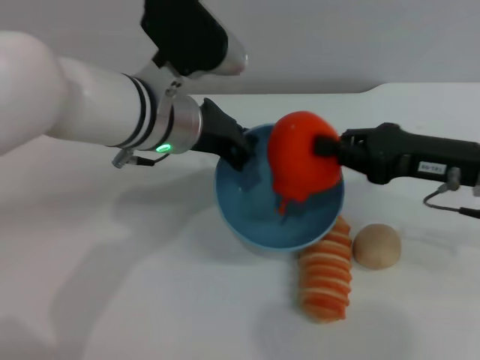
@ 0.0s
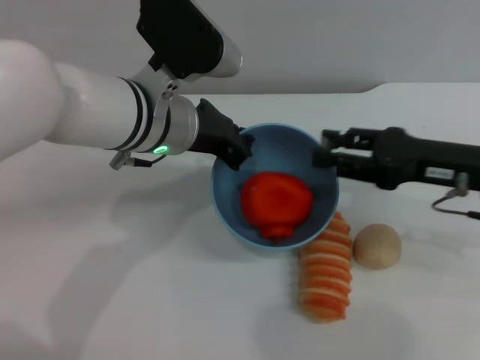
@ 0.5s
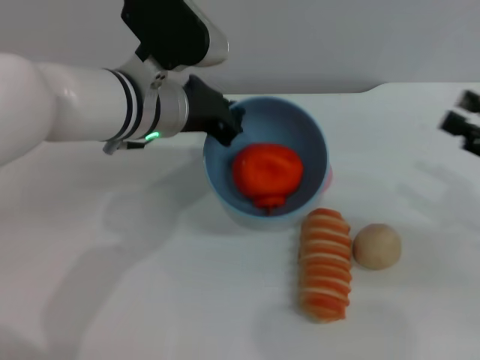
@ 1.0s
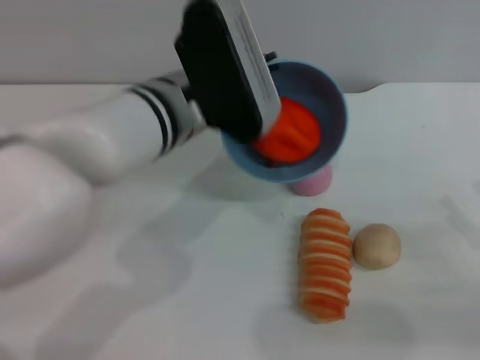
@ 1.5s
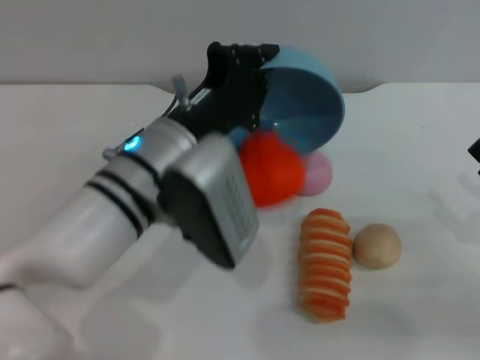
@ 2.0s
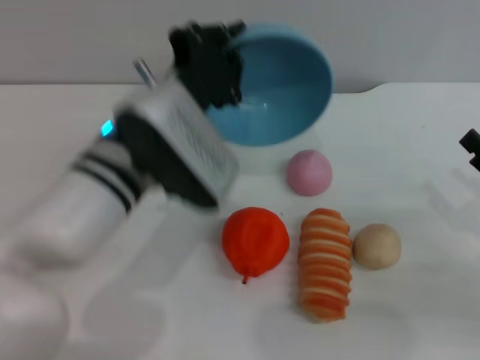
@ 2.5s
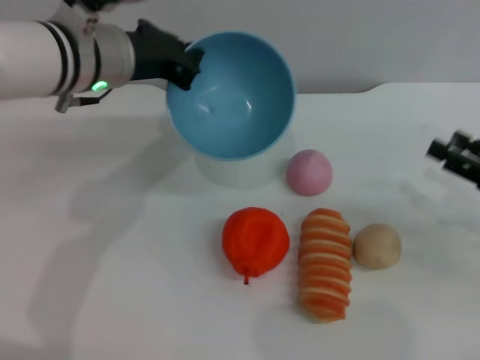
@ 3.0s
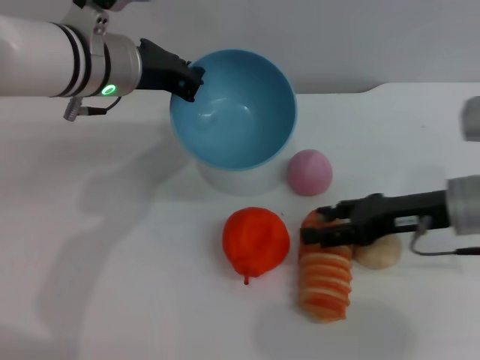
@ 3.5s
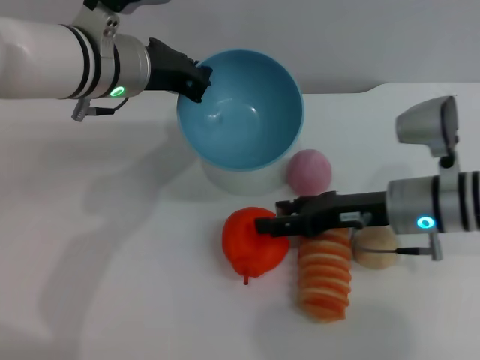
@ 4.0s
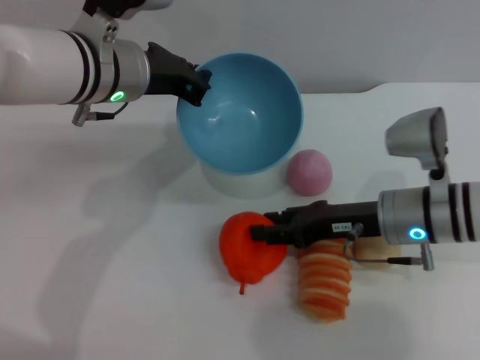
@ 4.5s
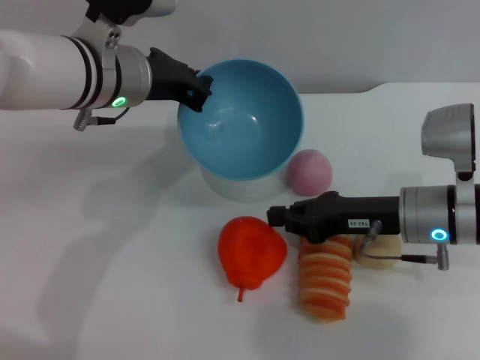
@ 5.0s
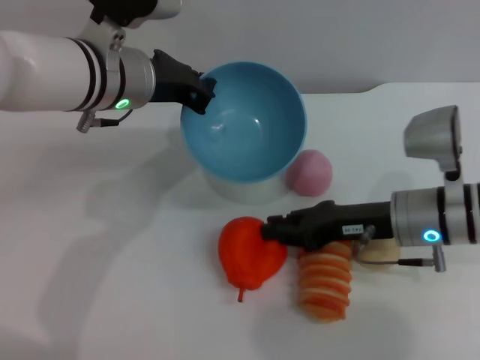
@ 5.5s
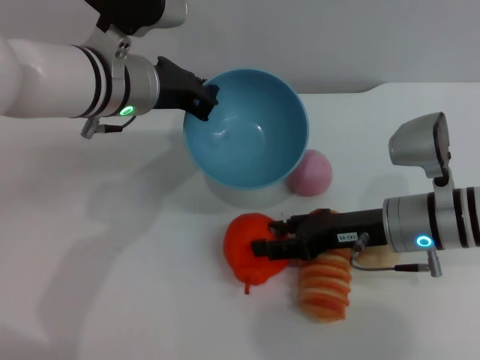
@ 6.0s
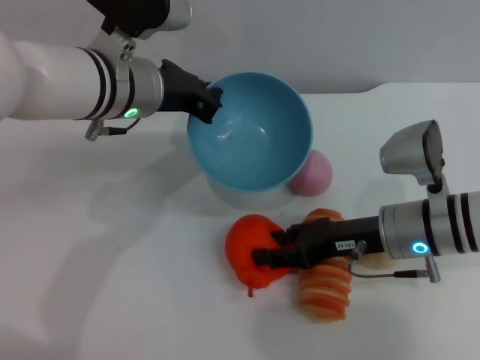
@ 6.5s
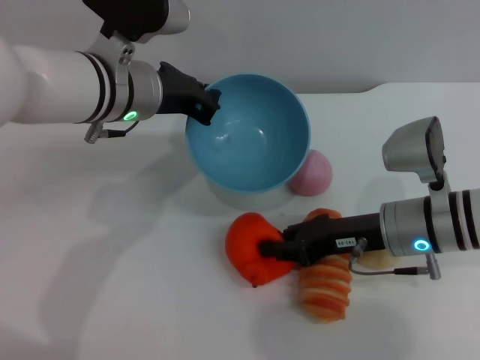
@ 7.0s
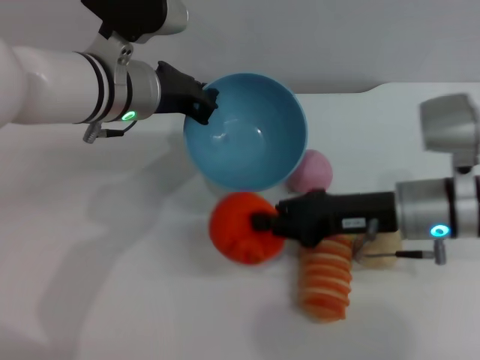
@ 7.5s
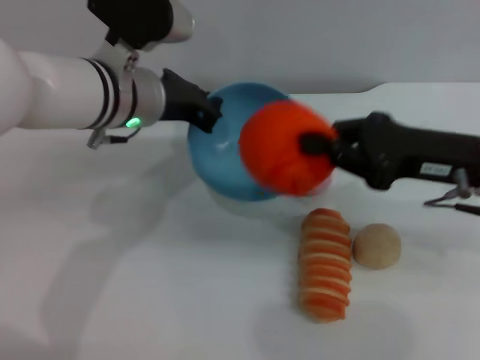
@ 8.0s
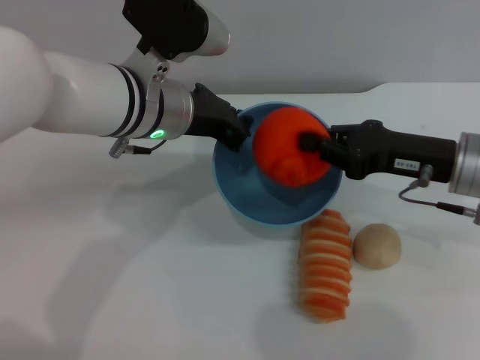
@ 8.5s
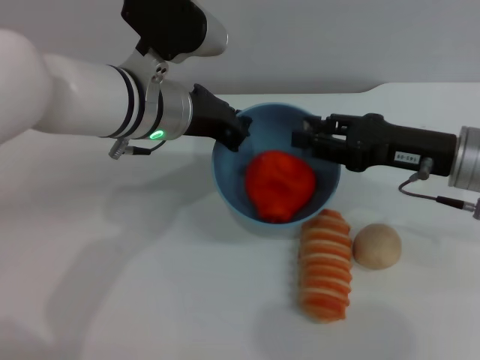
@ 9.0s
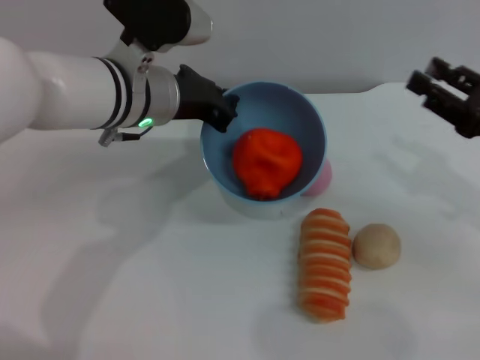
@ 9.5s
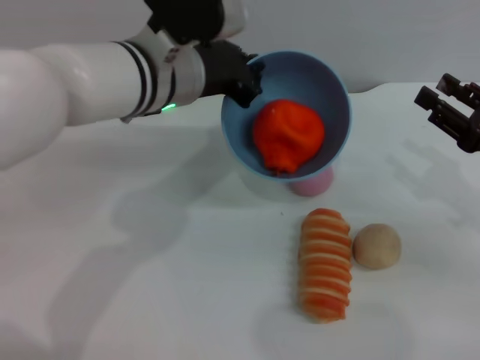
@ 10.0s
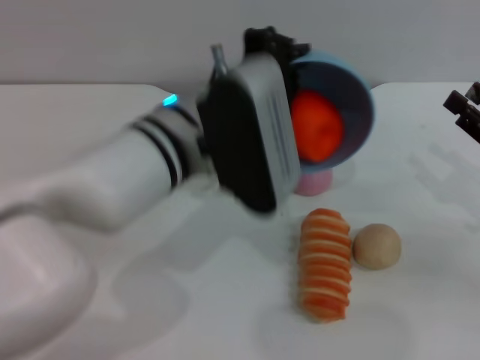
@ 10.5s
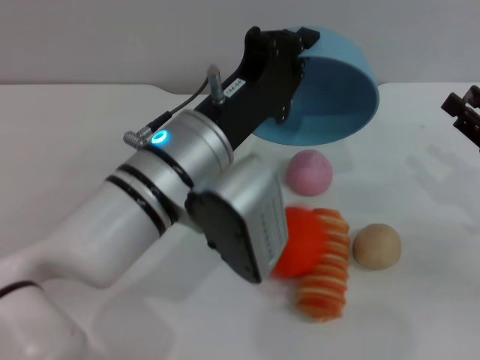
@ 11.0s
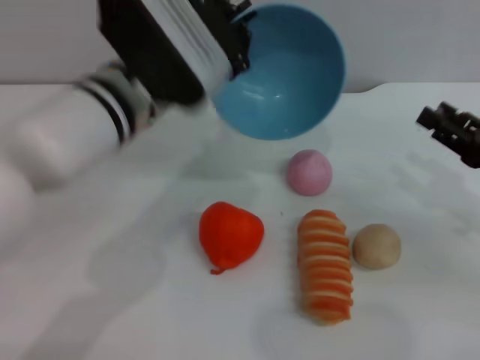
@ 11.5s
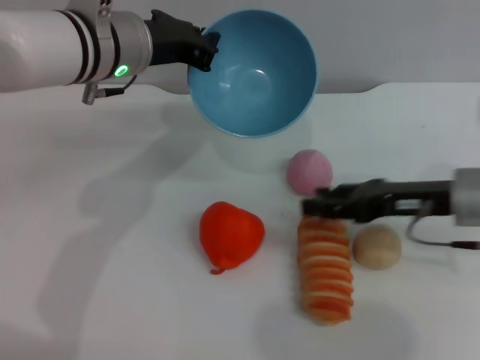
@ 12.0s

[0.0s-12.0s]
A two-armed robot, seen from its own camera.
Task of the whole recording: put the orange into the blue bowl and pour it out repeatedly.
Step, 1.0s to 2.0s: Pour the orange out of the bowl.
Step, 2.5s to 7.0s: Pick up the orange with the right gripper.
Step, 8.0s to 8.5s: Place the orange into the bowl.
Step, 9.0s to 11.0s: Pour the orange out of the bowl.
0.0s to 2.0s: The left gripper goes roughly 5 cm backward; the right gripper travels backward, to the right and downward by about 15 cm, and opens its fingers.
2.0s to 4.0s: The left gripper shifts about 10 cm forward and upward. Meanwhile the right gripper goes some 20 cm to the left and forward.
4.0s to 6.0s: The right gripper closes up.
6.0s to 8.0s: The right gripper is displaced upward by roughly 10 cm, and closes its fingers.
8.0s to 10.0s: The right gripper goes about 10 cm to the right and downward, and opens its fingers.
10.0s to 12.0s: The right gripper is displaced to the left by about 10 cm. The left gripper goes backward and returns, approximately 10 cm each way.

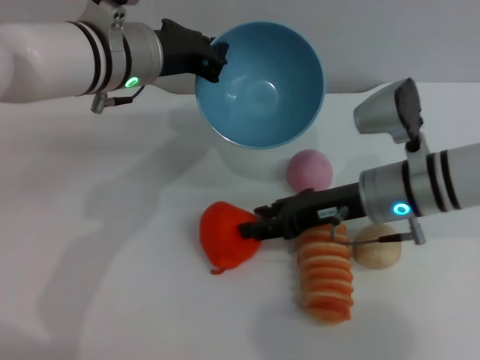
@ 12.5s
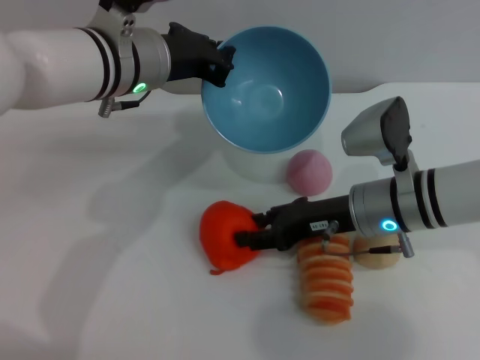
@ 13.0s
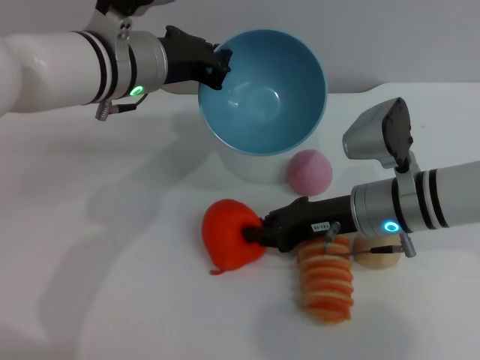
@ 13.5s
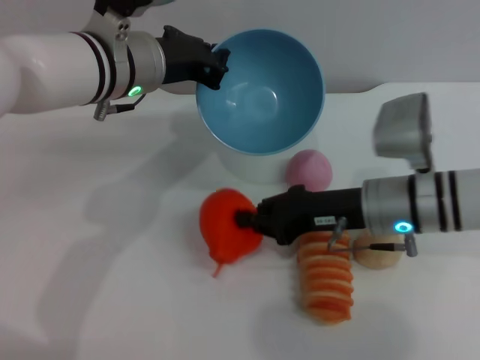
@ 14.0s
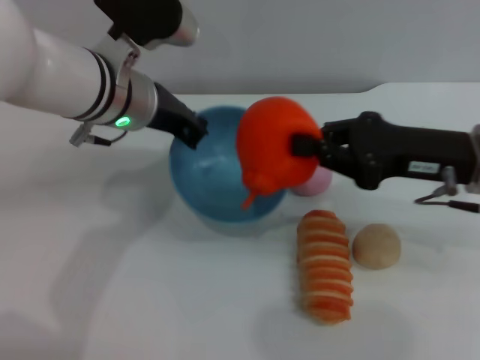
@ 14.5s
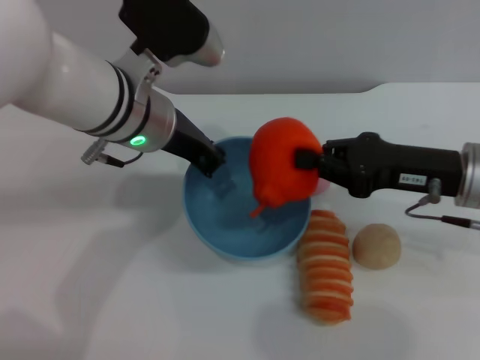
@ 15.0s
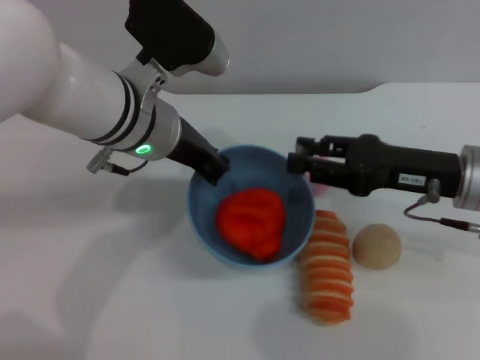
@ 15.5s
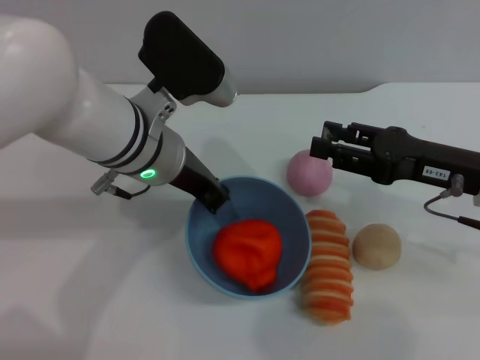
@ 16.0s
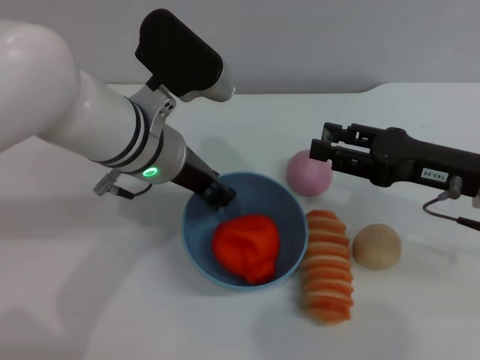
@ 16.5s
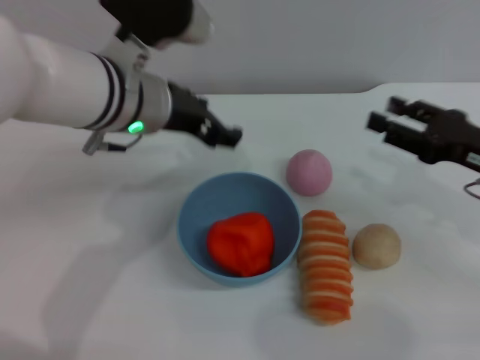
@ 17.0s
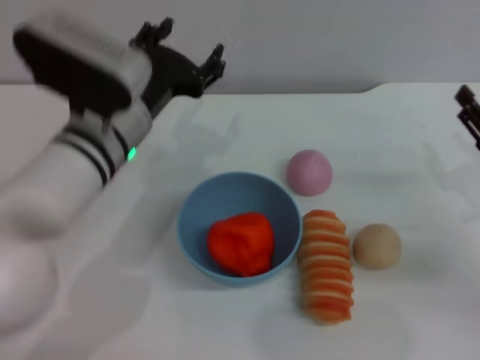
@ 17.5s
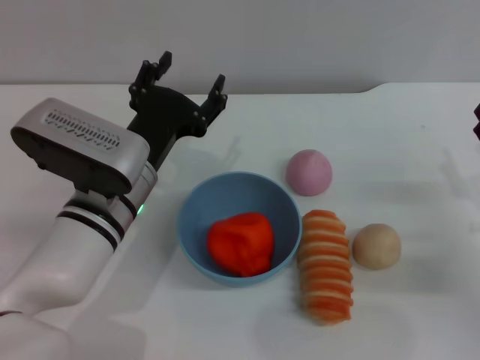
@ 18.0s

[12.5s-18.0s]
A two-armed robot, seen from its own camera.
Task of the whole recording: put the orange into the blue bowl and pour it out repeatedly.
Step, 12.5s to 14.0s: Pick up the orange with the right gripper.
Step, 14.5s to 15.5s: Place the orange into the bowl.
Step, 16.0s to 16.5s: Place the bowl on the table.
12.5s to 14.5s: The right gripper heads upward and to the right, covering roughly 10 cm, and closes its fingers.
14.5s to 16.0s: The right gripper opens its fingers.
16.0s to 18.0s: The left gripper is displaced downward by roughly 10 cm, and opens its fingers; the right gripper shifts about 10 cm downward and to the right.

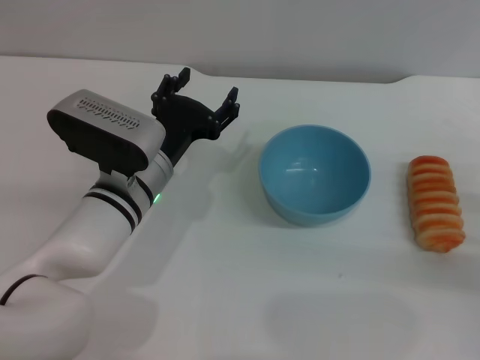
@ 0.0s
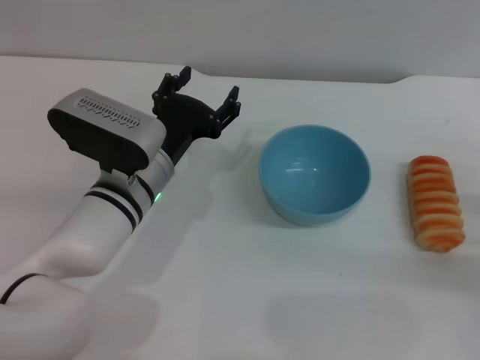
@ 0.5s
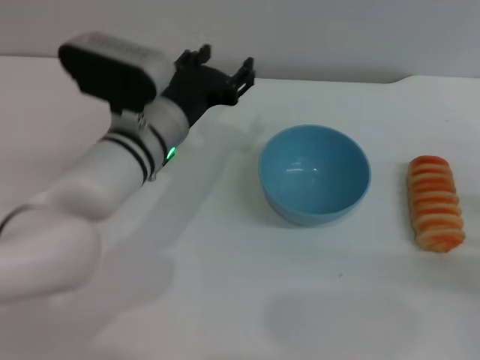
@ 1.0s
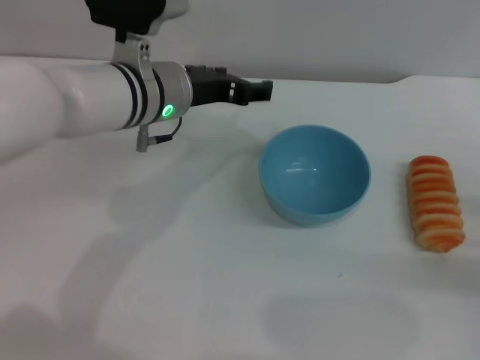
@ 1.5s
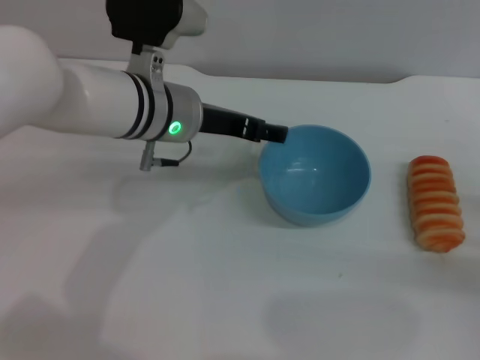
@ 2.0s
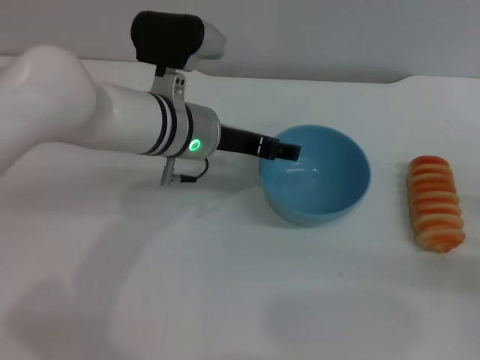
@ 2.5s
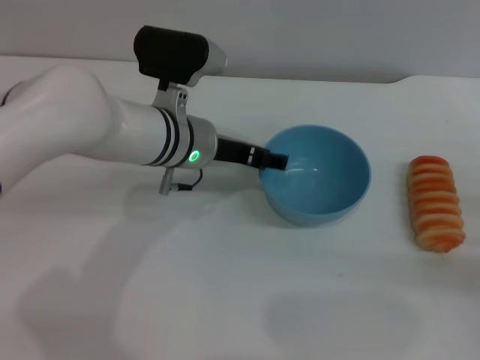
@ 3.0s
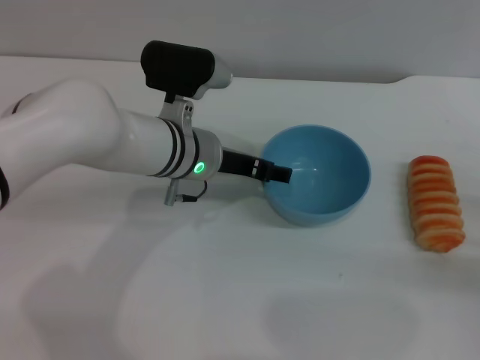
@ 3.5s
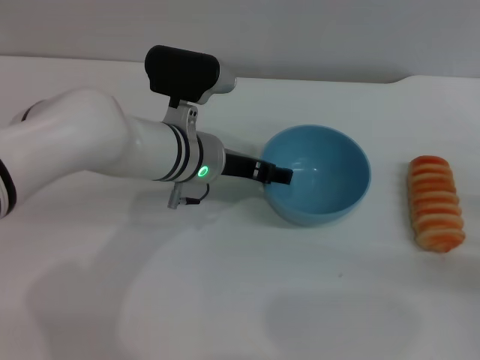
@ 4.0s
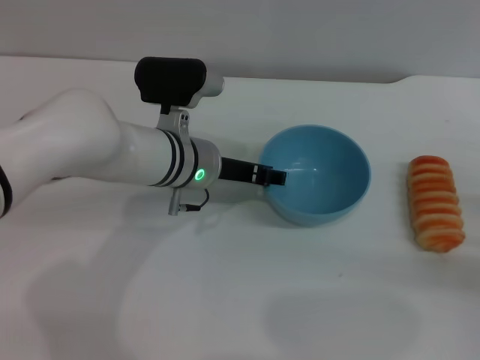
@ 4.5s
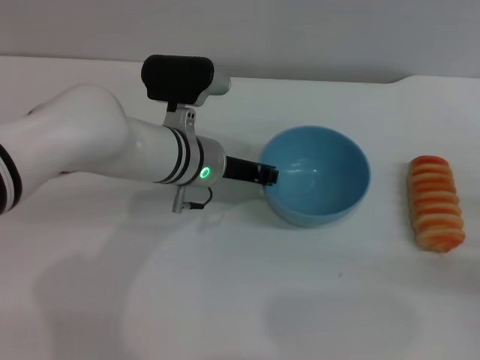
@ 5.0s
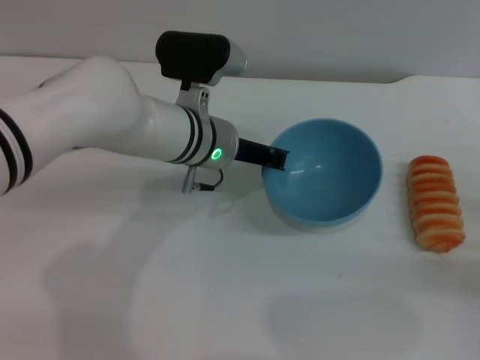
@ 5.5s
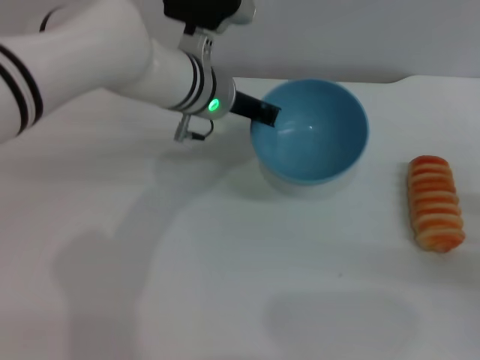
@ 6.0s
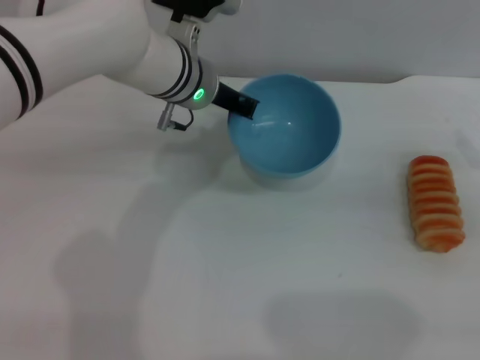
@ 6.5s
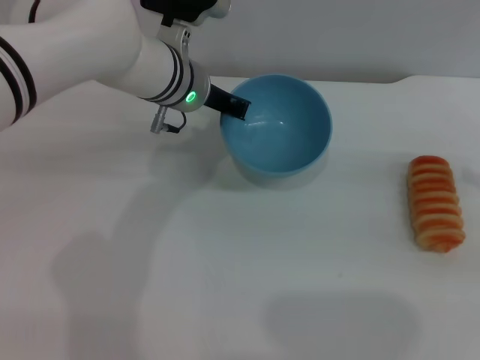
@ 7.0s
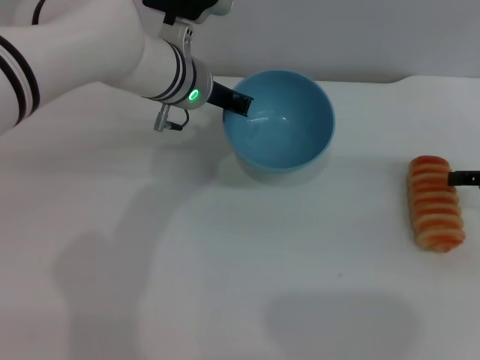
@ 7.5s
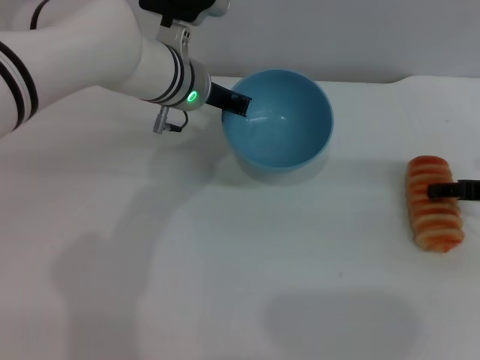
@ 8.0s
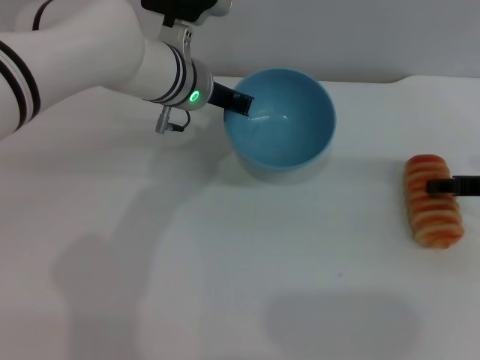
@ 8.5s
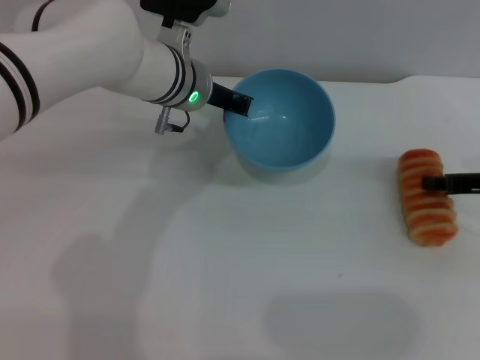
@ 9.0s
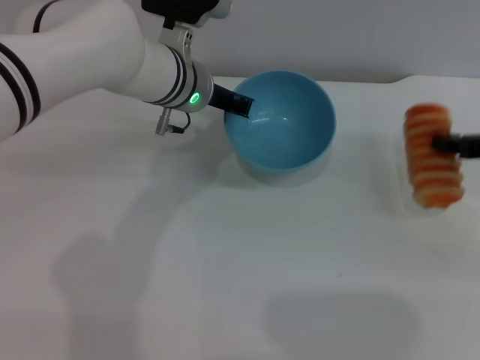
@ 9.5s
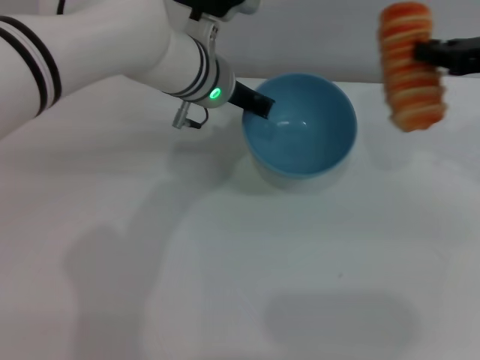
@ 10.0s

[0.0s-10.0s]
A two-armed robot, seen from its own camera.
Task of the whole recording: put the bread into the blue bowl and pour it out repeatedly.
Step, 0.0s to 5.5s: Pick up the bowl with the left gripper.
Step, 6.0s to 9.5s: Pick up the bread with the right gripper.
0.0s to 2.0s: The left gripper is displaced upward and forward by some 10 cm.
2.0s to 4.0s: The left gripper is displaced downward by about 5 cm.
4.0s to 6.0s: The left gripper shifts approximately 5 cm forward, and closes up.
6.0s to 8.0s: The right gripper is displaced forward and upward by approximately 10 cm.
8.0s to 10.0s: The right gripper is displaced upward by about 10 cm, and closes.
